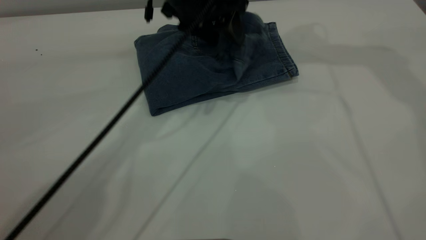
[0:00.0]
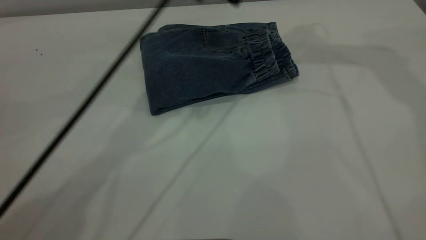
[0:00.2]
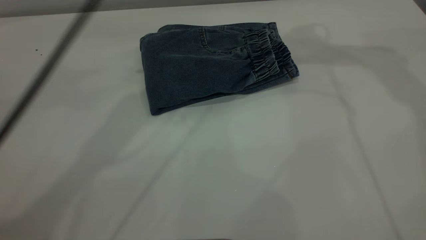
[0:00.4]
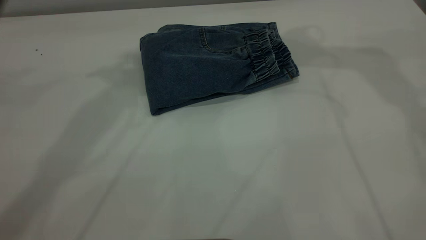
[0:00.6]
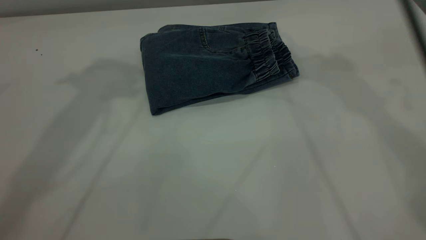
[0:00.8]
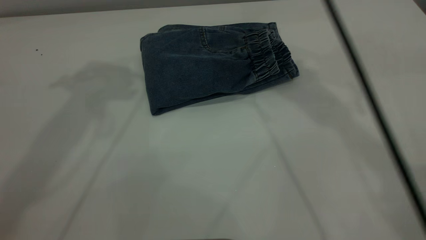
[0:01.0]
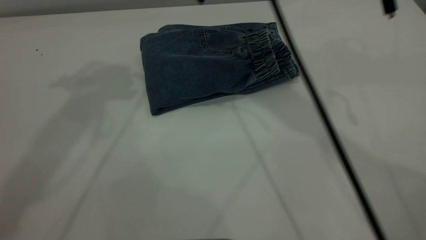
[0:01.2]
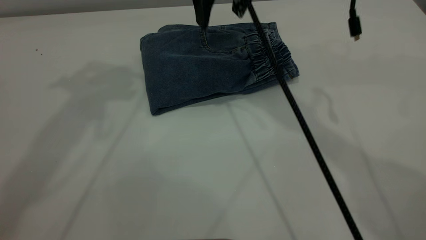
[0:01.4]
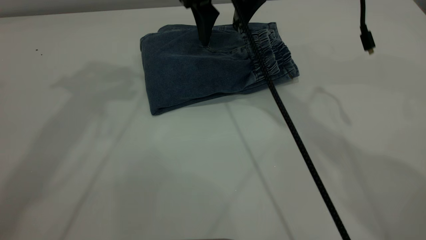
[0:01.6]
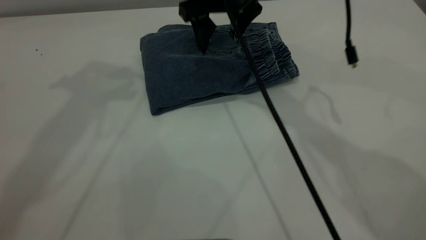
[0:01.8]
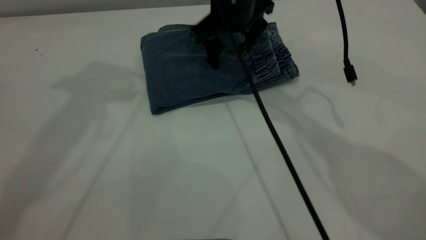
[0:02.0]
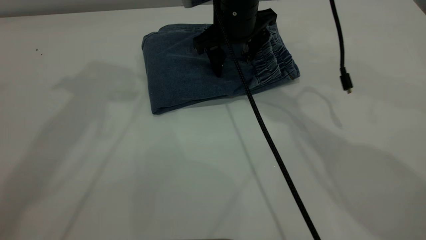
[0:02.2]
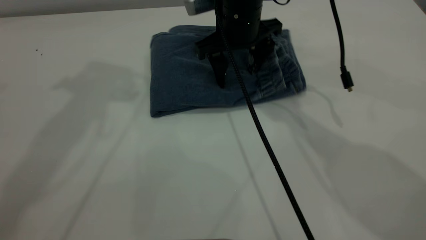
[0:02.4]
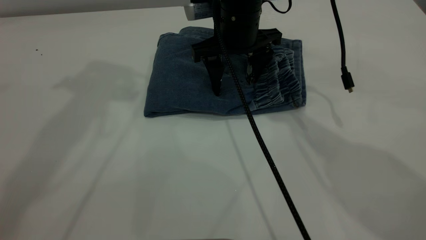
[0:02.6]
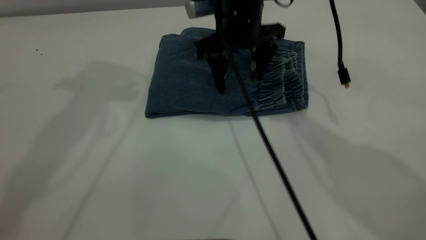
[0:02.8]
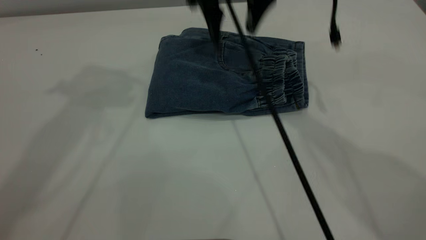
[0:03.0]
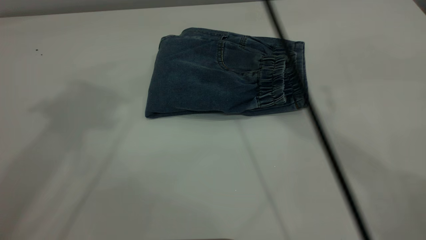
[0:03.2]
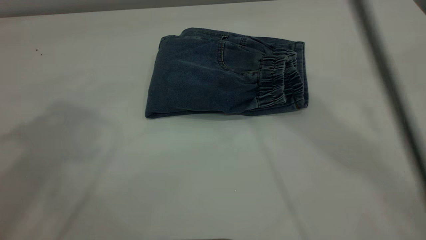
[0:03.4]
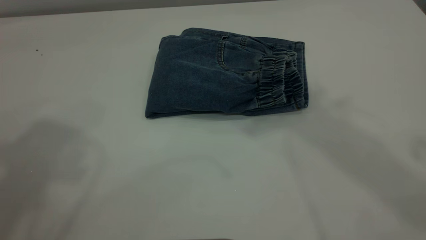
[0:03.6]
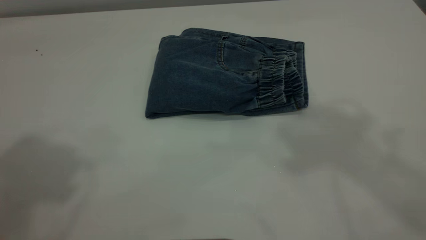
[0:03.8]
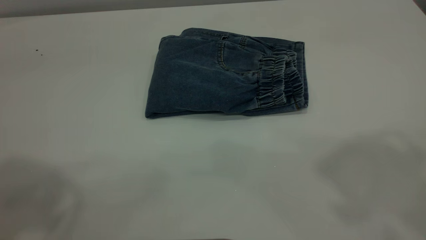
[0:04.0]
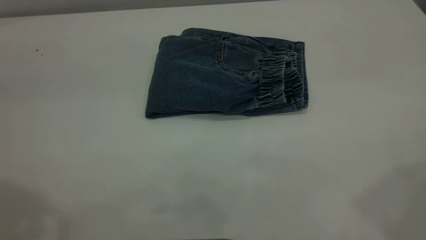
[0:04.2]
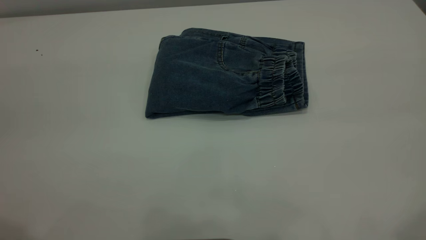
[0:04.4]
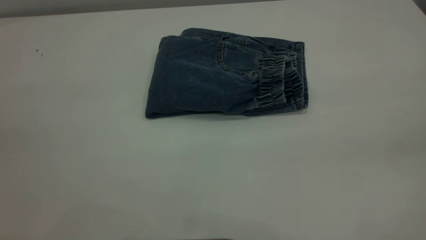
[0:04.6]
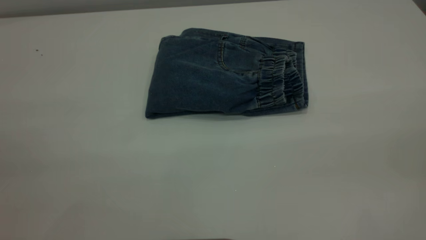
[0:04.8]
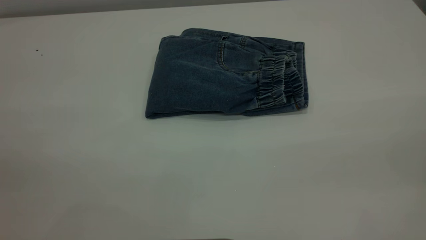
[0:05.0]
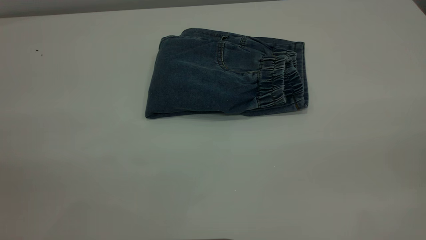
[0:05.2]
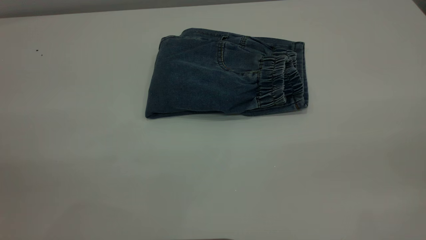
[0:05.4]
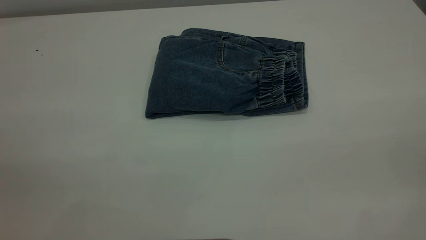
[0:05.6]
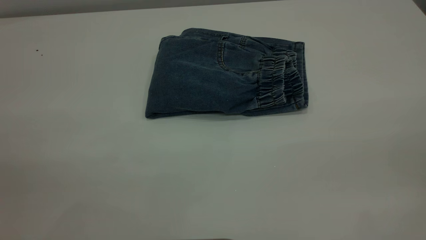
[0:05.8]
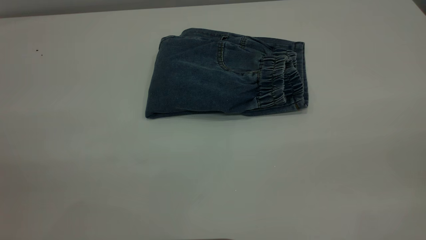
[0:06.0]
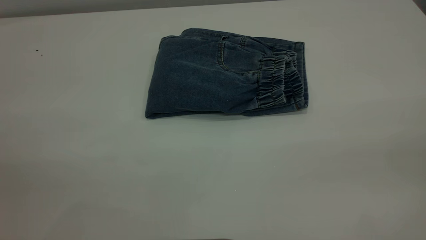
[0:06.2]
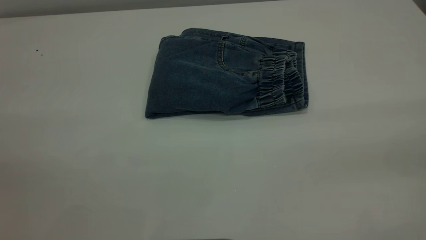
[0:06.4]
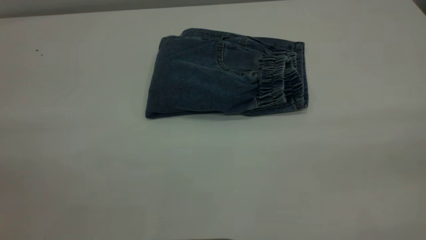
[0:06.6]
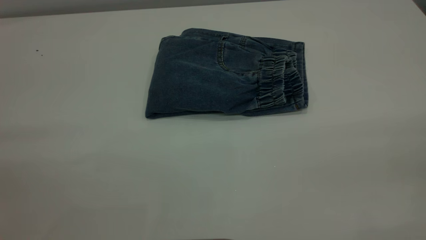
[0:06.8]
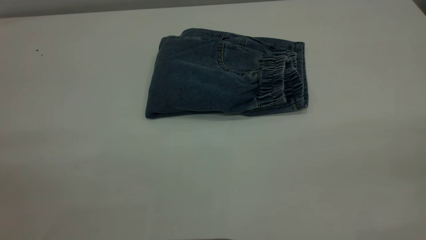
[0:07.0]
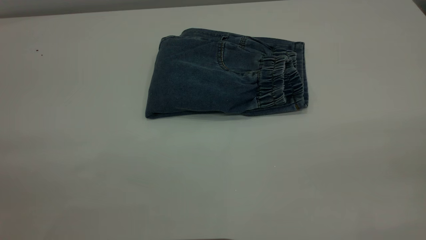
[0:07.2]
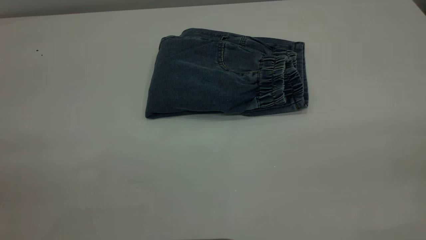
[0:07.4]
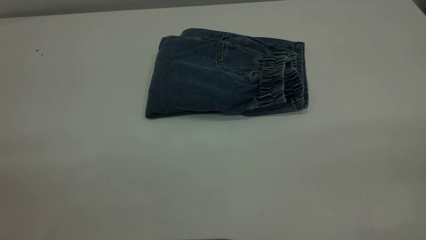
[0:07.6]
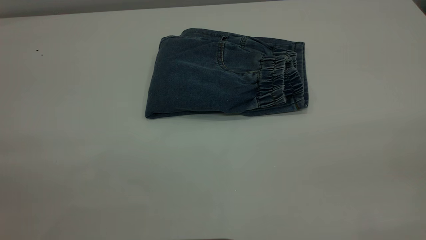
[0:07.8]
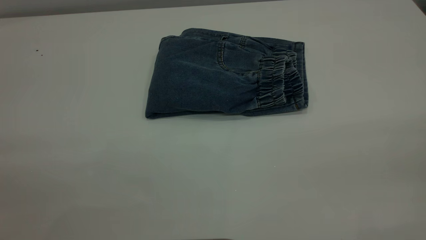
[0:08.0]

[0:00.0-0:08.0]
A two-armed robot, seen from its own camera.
0:00.0 to 0:01.6: The right gripper travels downward and to the left by about 20 cm, while the left gripper goes approximately 25 cm upward and to the left.
0:01.6 to 0:03.2: The right gripper is displaced upward by approximately 15 cm. Meanwhile the left gripper heads backward and upward, covering about 10 cm.
0:03.2 to 0:04.8: The right gripper travels backward and to the right by roughly 40 cm.
